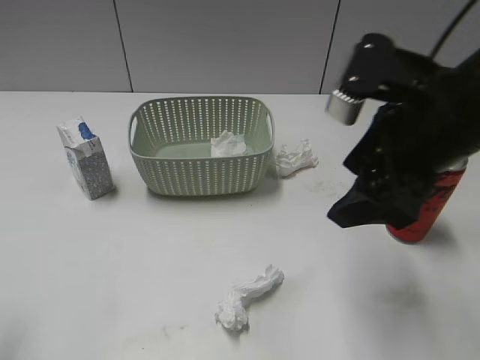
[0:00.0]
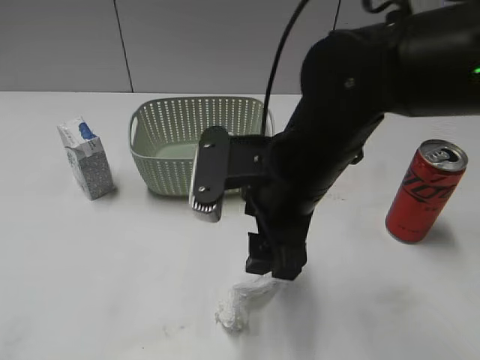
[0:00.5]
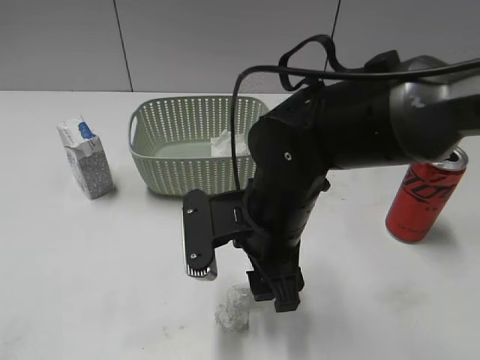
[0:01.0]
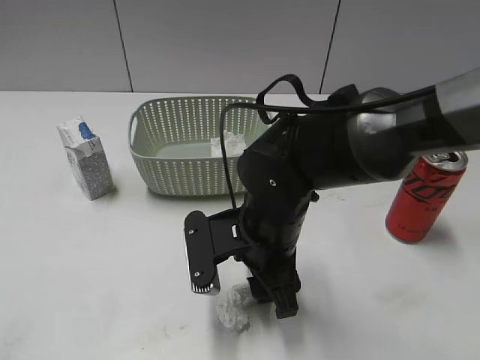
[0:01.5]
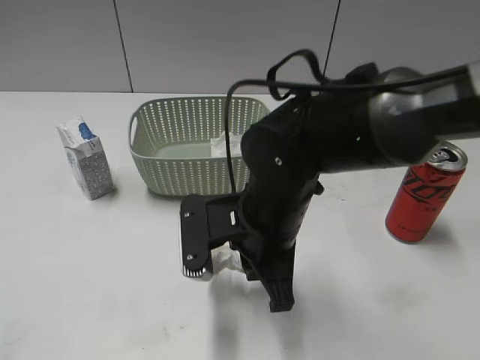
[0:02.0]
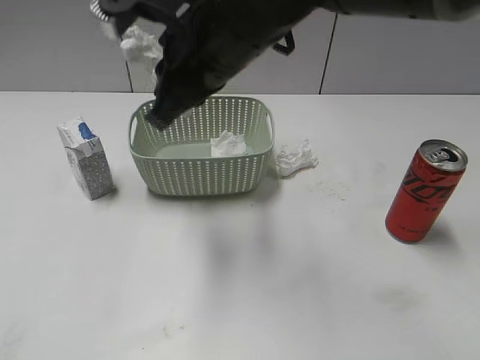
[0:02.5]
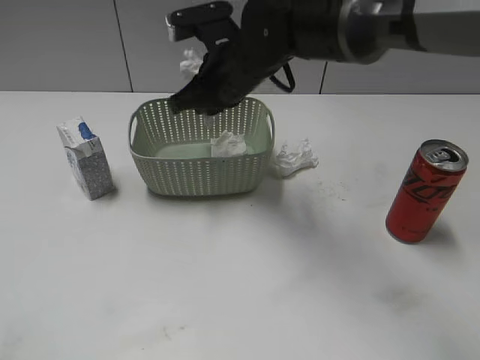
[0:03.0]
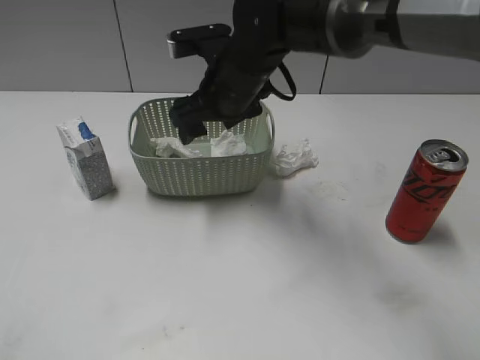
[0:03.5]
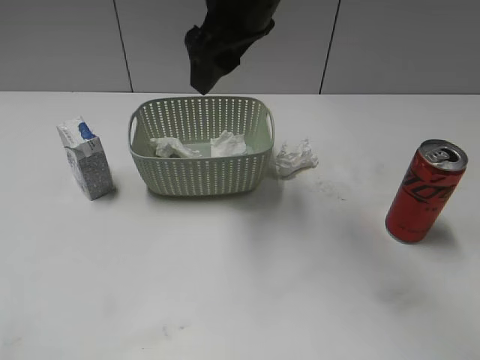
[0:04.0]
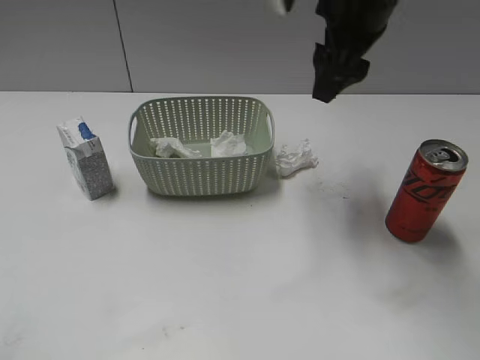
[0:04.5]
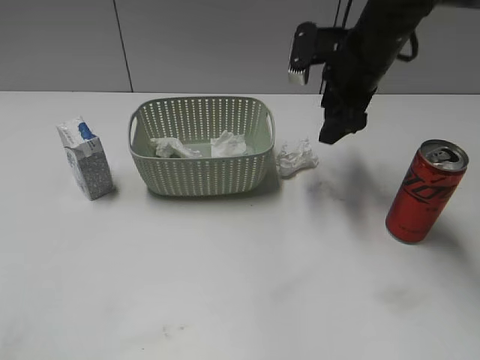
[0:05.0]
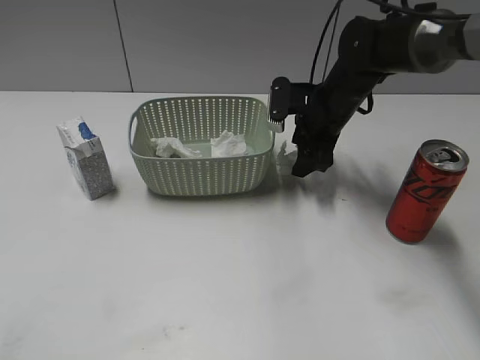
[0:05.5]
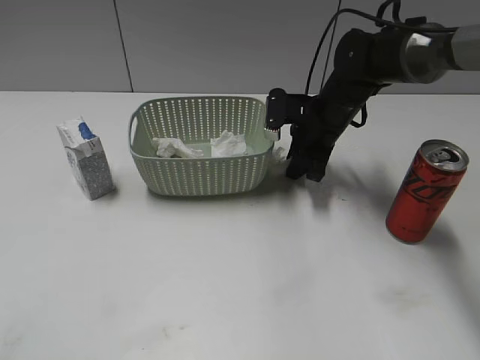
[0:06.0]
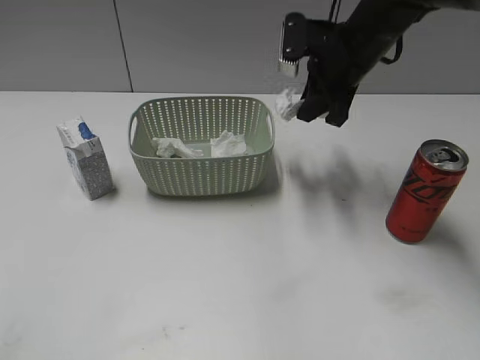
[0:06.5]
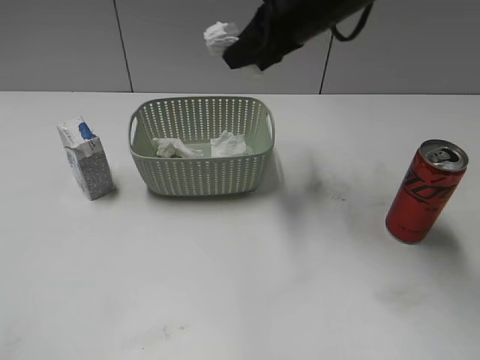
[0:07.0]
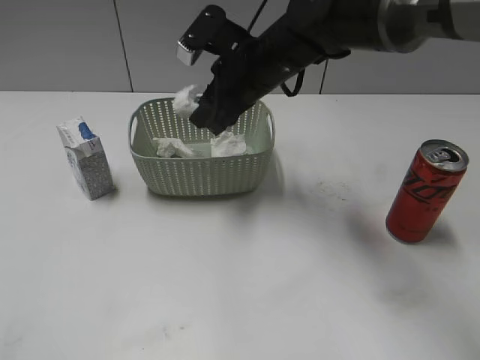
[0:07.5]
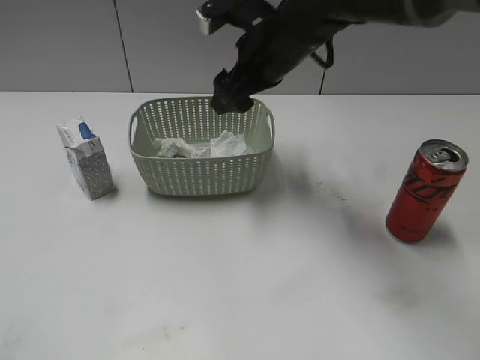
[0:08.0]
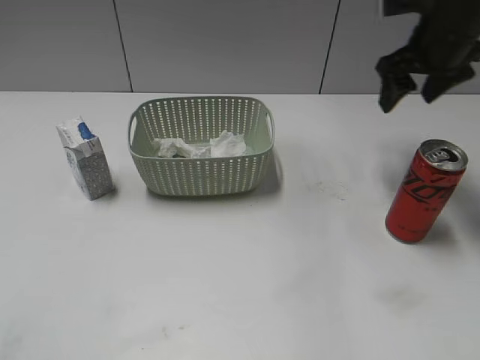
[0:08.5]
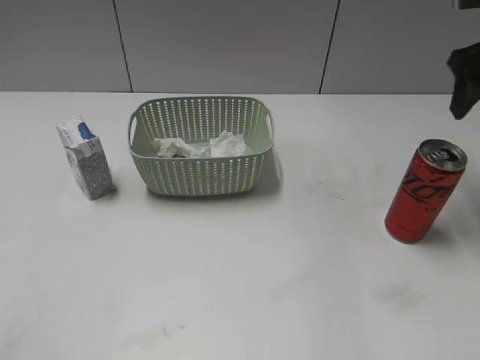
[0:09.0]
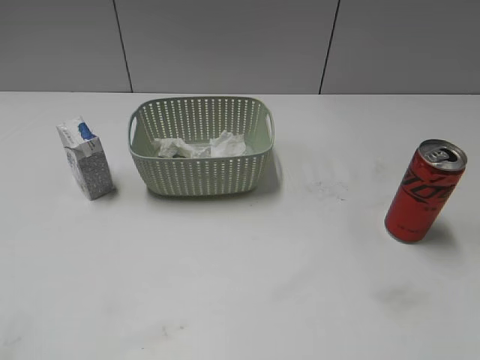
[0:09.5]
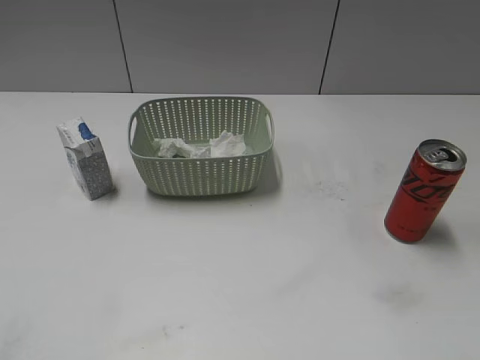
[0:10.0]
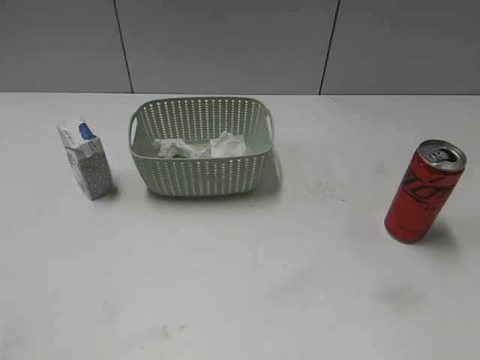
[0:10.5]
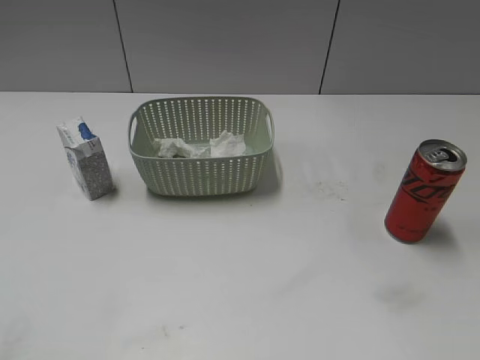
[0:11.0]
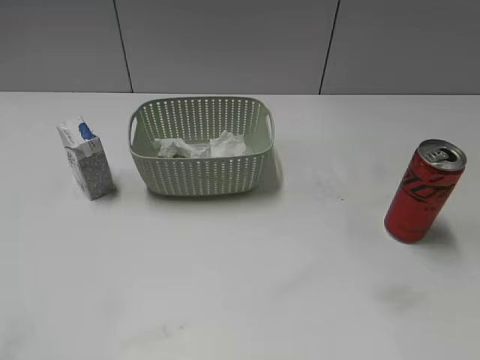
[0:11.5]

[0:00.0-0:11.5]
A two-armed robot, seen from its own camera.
Step, 0:00.0 to 0:02.0: Grasp the waste paper with right gripper.
Step, 0:02.5 to 0:03.0: Place the waste paper in the basket with right gripper.
Step, 0:03.5 to 0:06.0: Grasp the waste paper with right gripper.
Step, 0:06.5 to 0:07.5: Place the waste paper in the basket with right gripper.
0:00.0 to 0:02.0: The left gripper shifts approximately 15 cm backward. Meanwhile the right gripper shifts roughly 20 cm downward and to the left, and closes its fingers.
0:02.0 to 0:04.0: The right gripper goes up and down, some 20 cm each way, reversing 2 times, and opens up.
0:04.0 to 0:06.0: The right gripper goes roughly 25 cm downward and to the right, and closes.
0:06.0 to 0:07.5: The right gripper moves to the left and upward, approximately 15 cm.
0:07.5 to 0:09.5: The right gripper travels to the right and backward by roughly 35 cm, and opens up.
